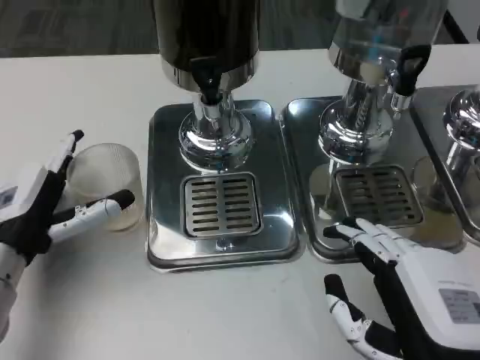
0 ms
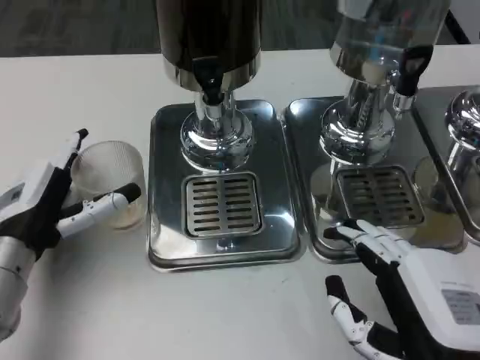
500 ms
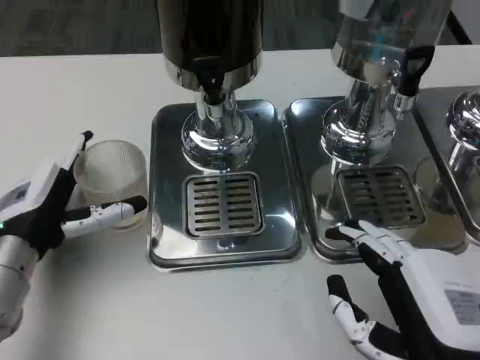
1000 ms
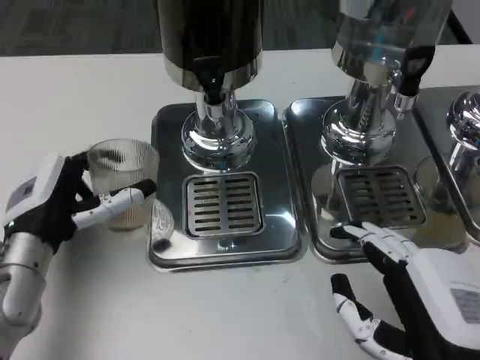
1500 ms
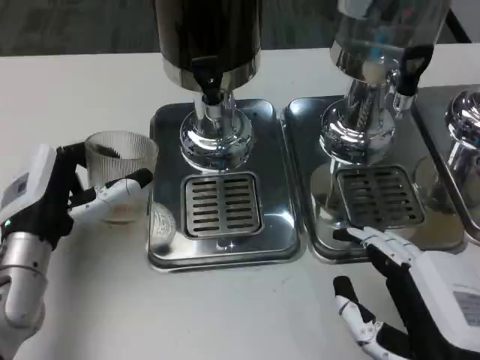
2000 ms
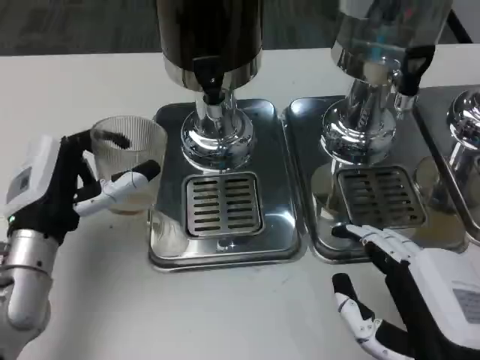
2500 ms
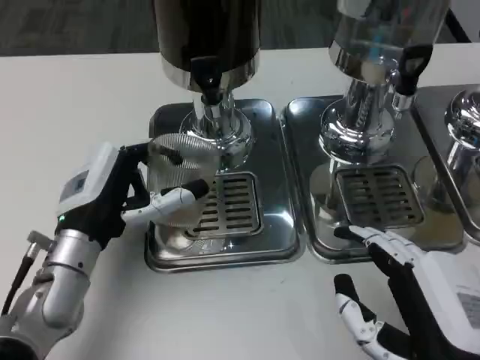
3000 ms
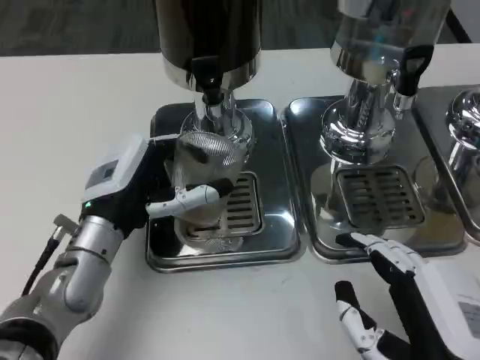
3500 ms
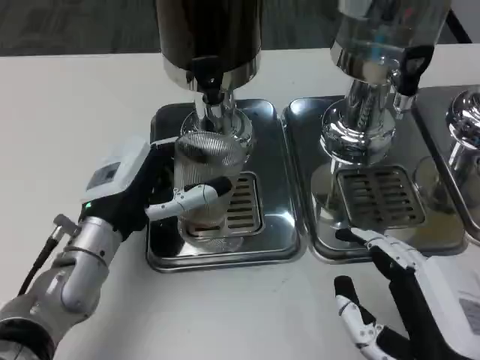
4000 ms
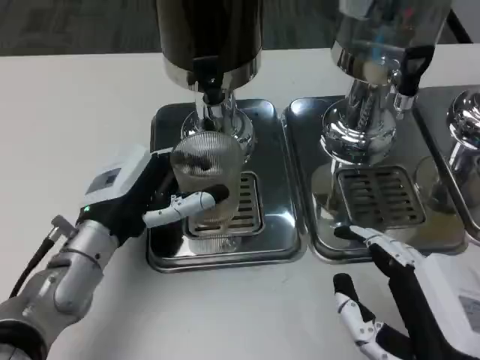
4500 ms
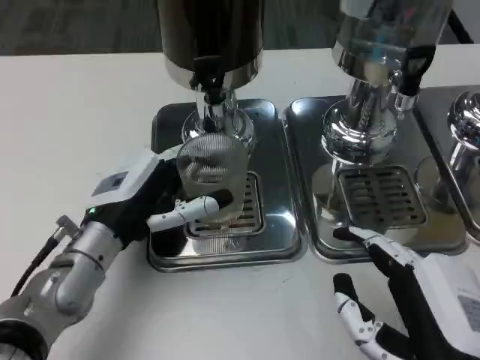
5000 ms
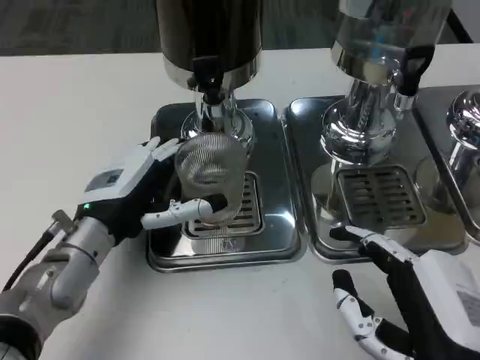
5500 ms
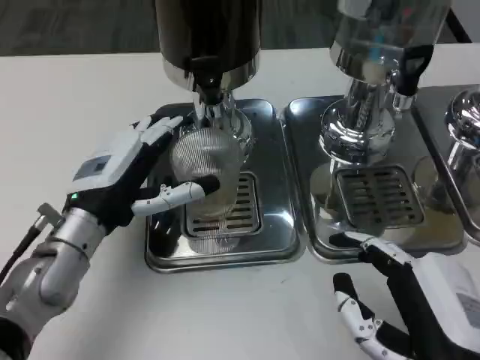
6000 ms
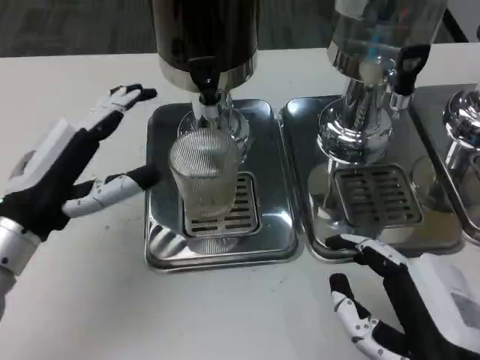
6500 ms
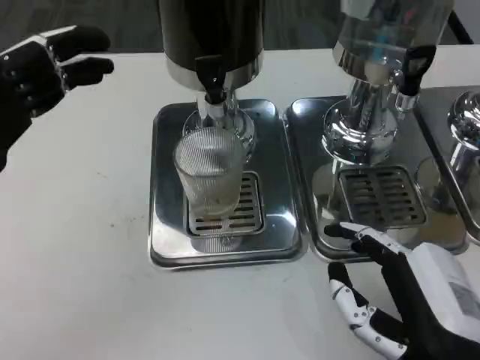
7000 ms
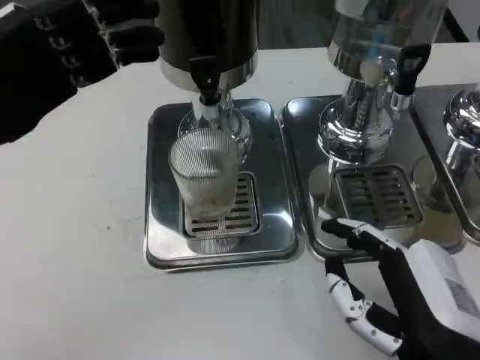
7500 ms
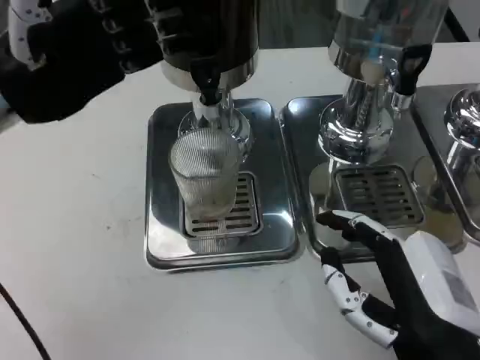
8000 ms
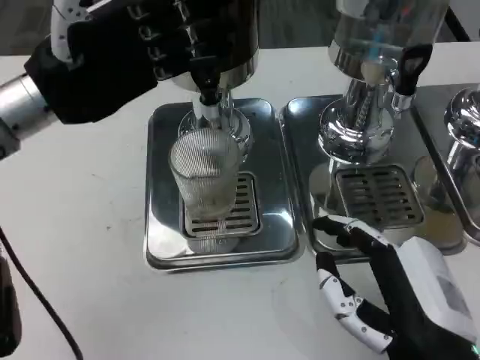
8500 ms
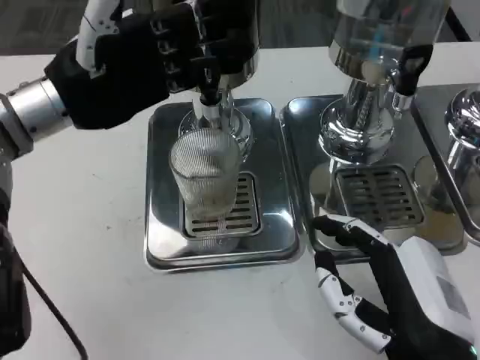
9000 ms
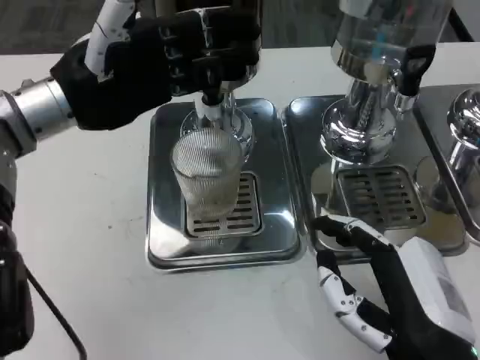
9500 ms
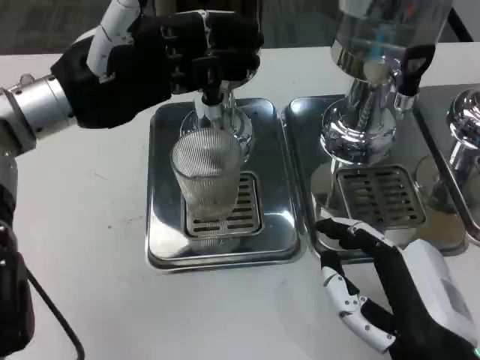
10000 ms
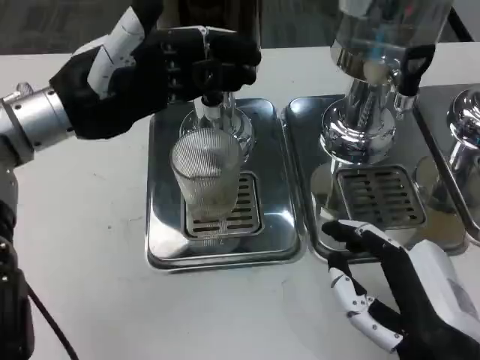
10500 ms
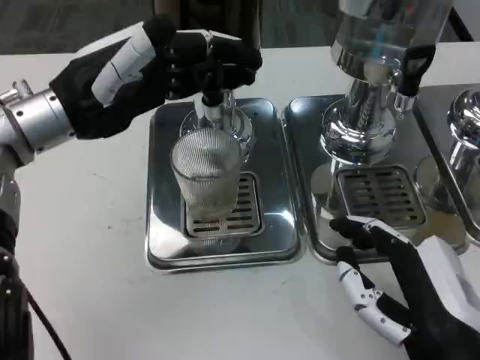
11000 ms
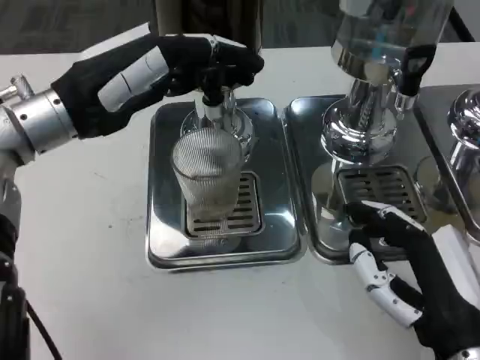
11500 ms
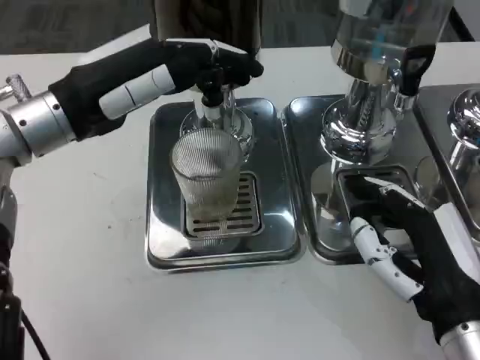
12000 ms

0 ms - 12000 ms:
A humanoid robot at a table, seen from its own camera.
Task of the whole recording: Grasp the cup under the faucet to collect the drink, then remove the cup.
0 ms - 2000 ms: The hands move only a little.
2000 ms - 4000 ms: The left hand heads to the right, covering approximately 5 cm.
4000 ms - 6000 ms: The hands make only small movements.
6000 ms - 8000 ms: The left hand moves upward, to the left and forward, approximately 15 cm.

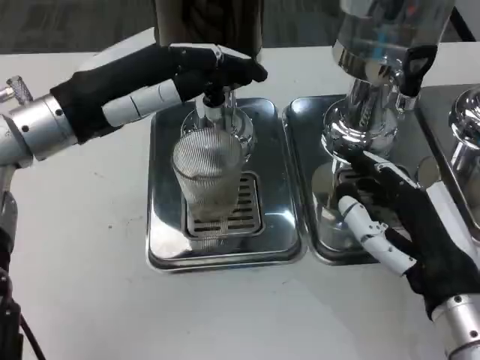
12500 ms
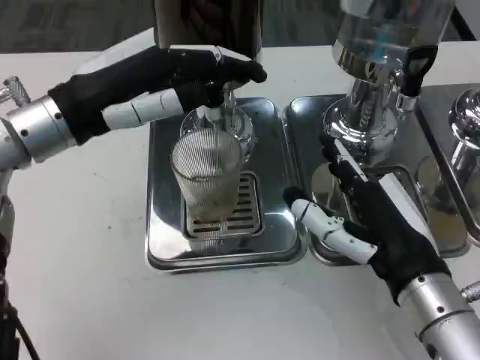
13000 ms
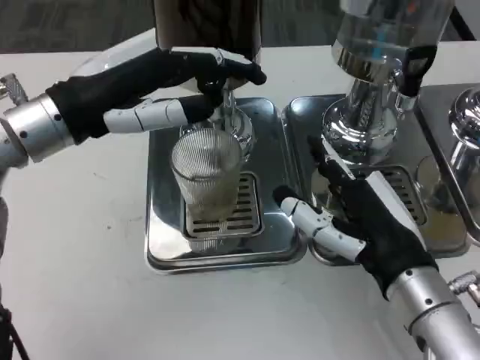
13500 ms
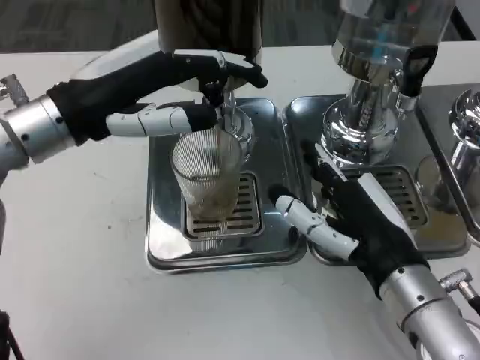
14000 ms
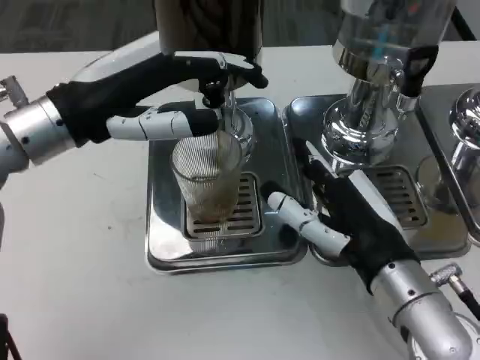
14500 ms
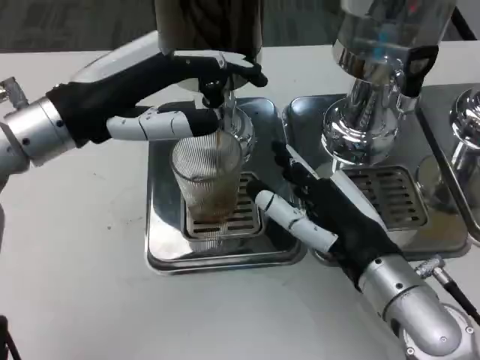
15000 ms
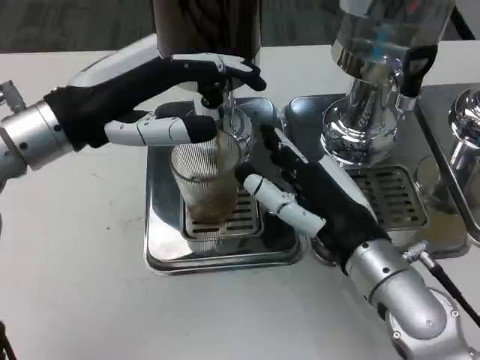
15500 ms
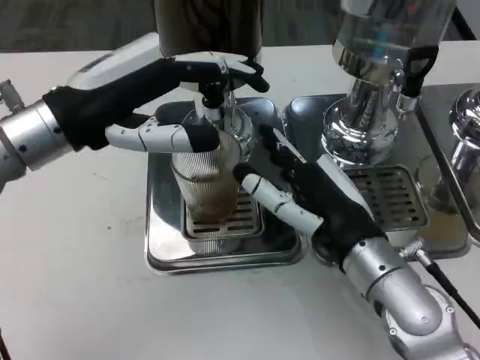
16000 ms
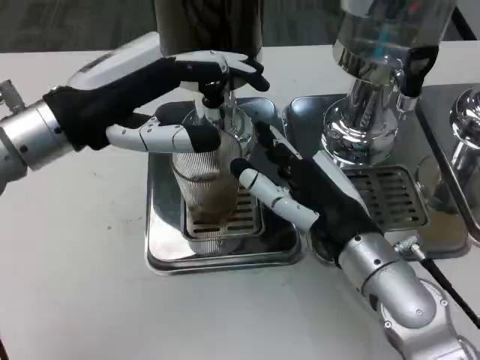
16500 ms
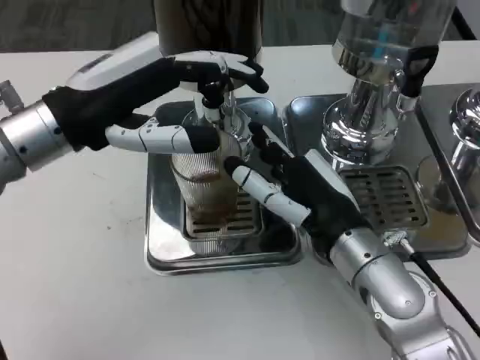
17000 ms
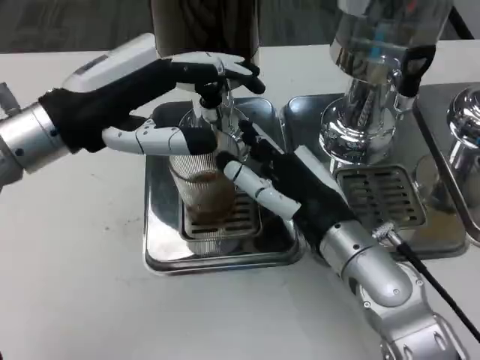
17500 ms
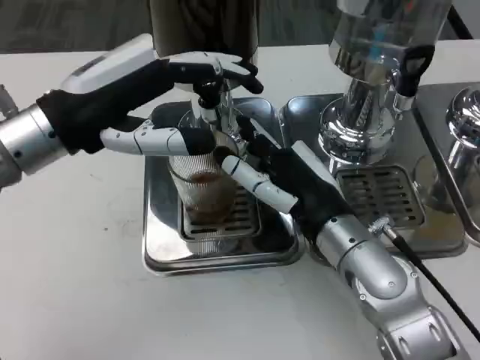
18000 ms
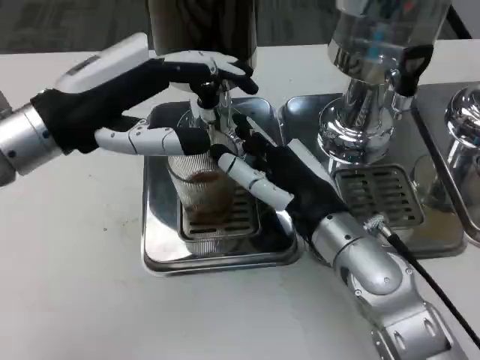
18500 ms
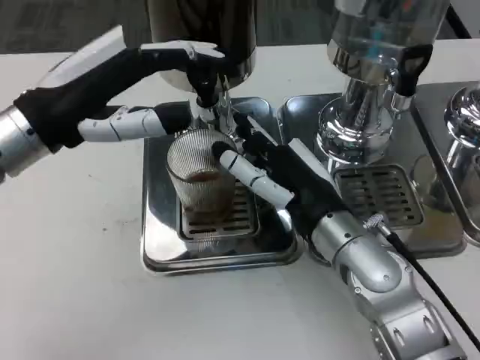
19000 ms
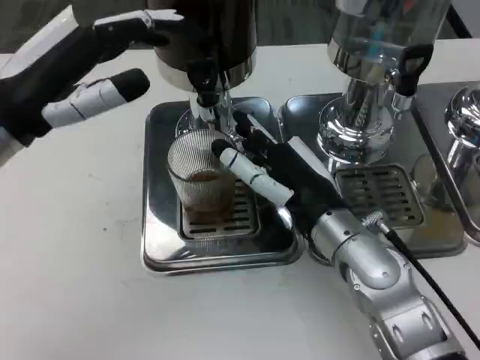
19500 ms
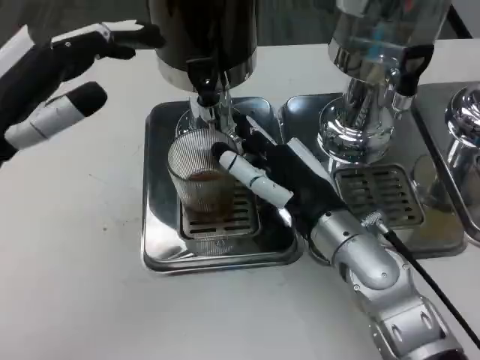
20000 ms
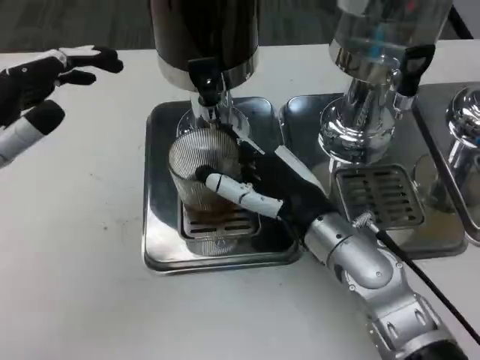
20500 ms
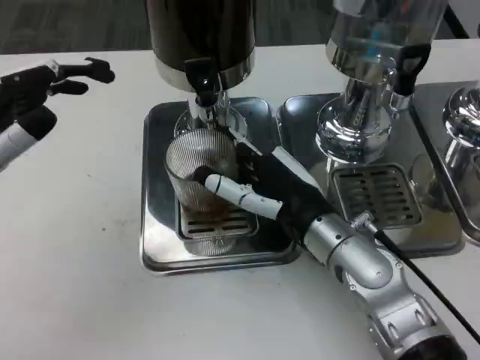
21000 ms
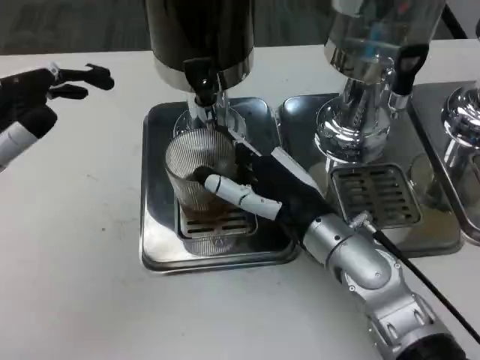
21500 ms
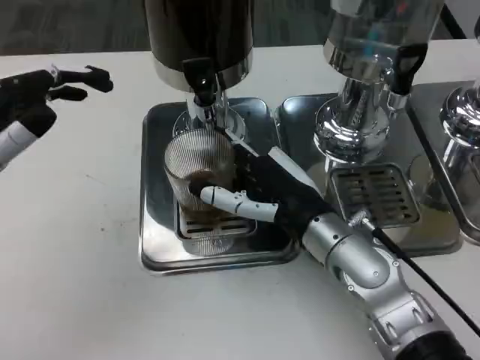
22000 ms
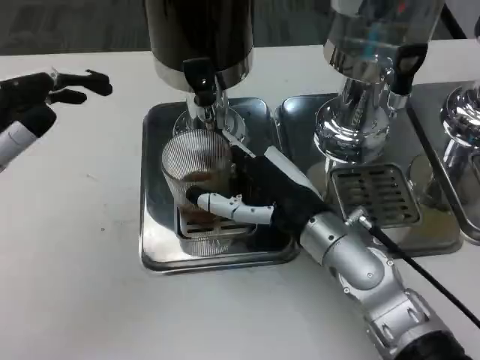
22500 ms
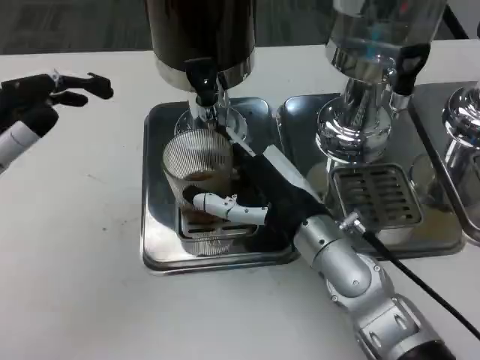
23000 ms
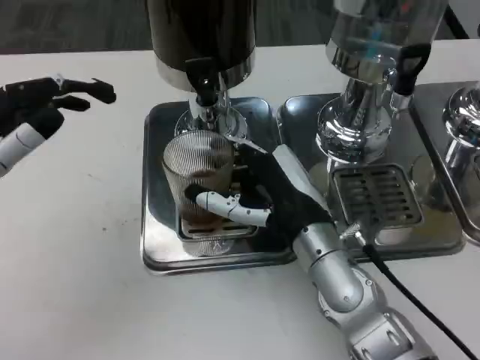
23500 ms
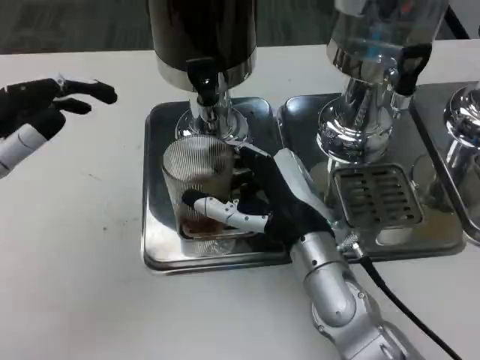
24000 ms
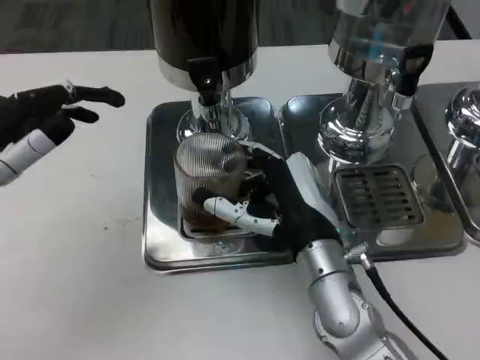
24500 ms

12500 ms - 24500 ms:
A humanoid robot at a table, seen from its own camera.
Task of the whole recording: Grasp the cup under the faucet to collect the drink, then remove the cup.
14500 ms - 16500 ms: The hands move only a little.
18500 ms - 20500 ms: The left hand goes roughly 10 cm to the left and backward.

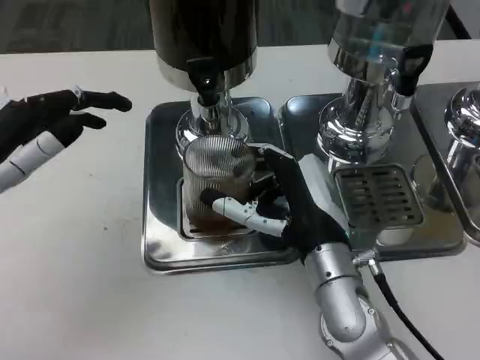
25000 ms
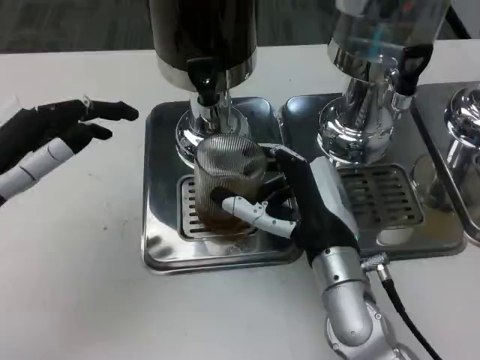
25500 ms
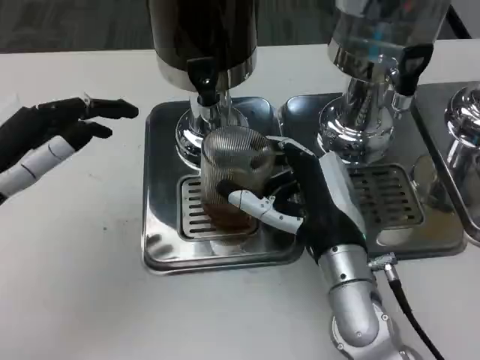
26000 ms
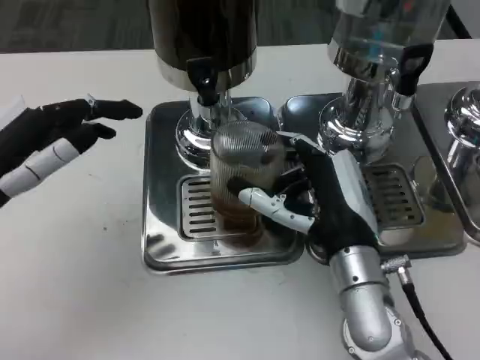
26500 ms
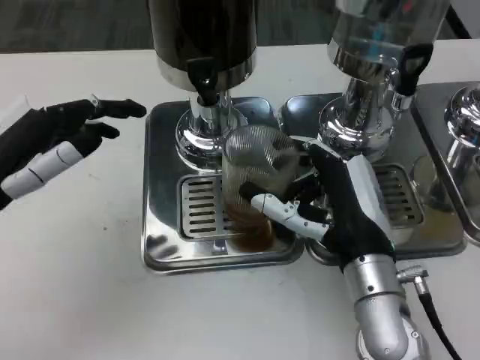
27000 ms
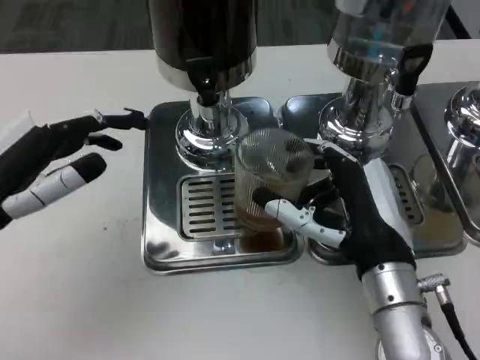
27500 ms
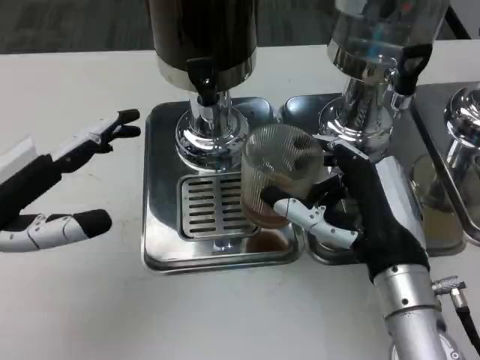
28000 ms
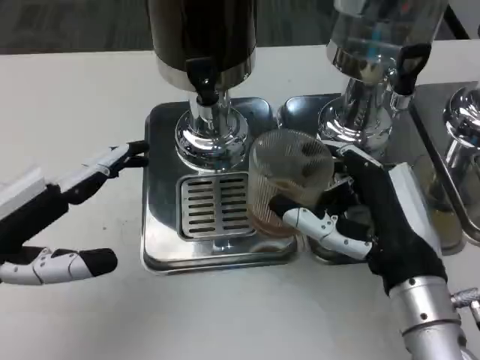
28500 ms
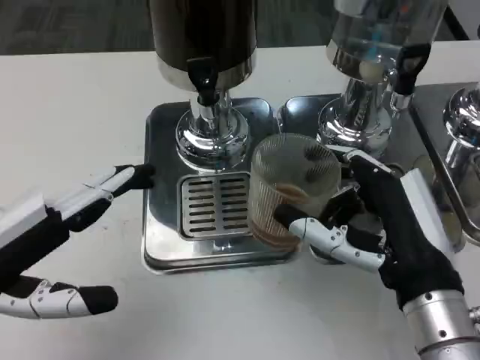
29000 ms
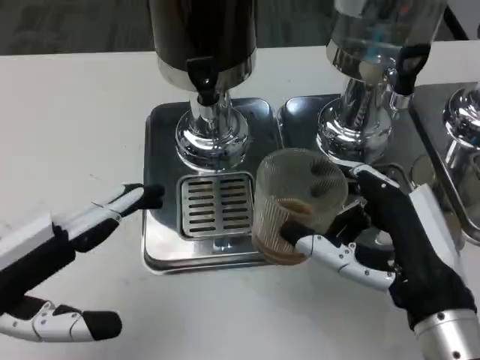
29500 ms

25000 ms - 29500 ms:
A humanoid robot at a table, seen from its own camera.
Task of the whole recording: Grasp the cup under the faucet to collect the drink, then remove the cup.
27000 ms - 29500 ms: Both hands move backward, roughly 10 cm.
